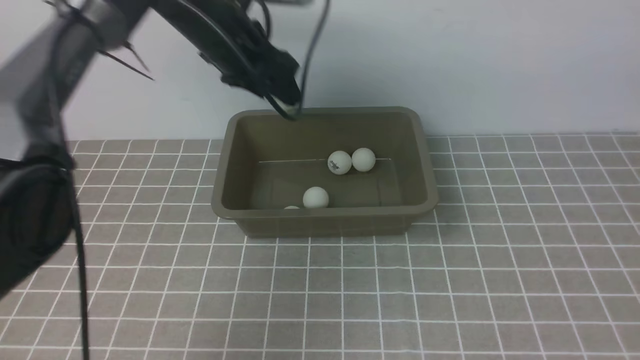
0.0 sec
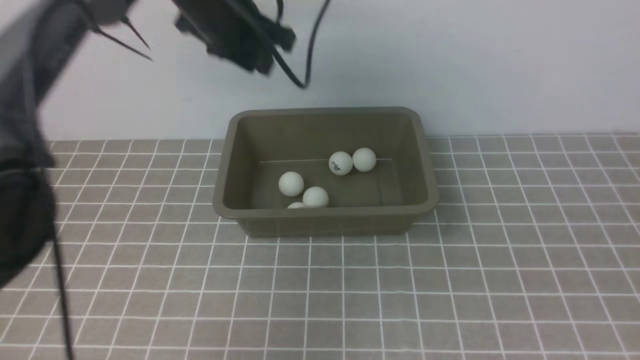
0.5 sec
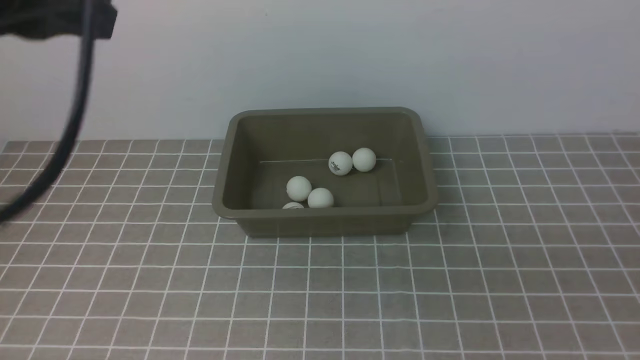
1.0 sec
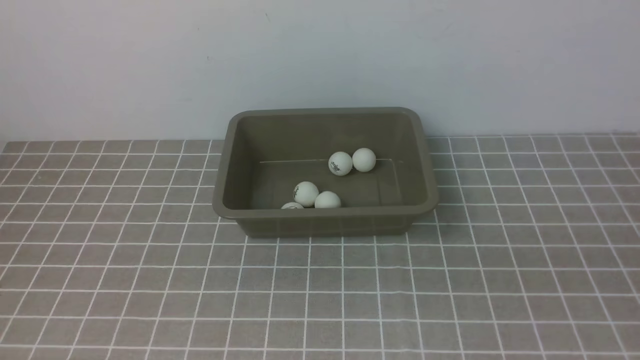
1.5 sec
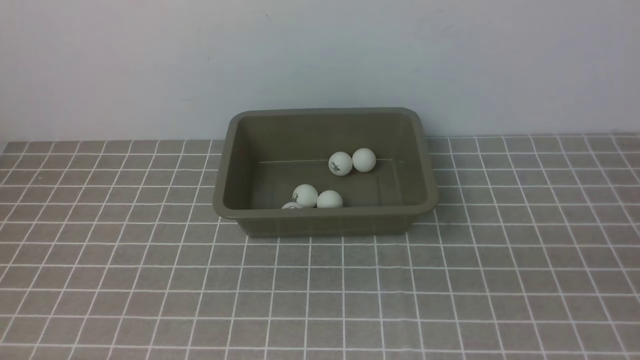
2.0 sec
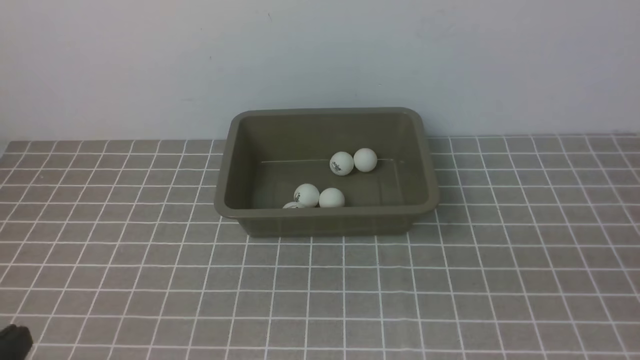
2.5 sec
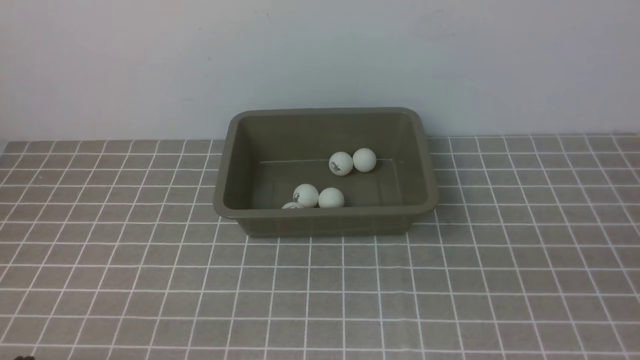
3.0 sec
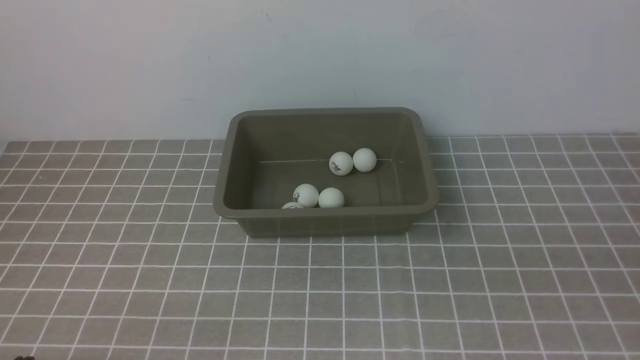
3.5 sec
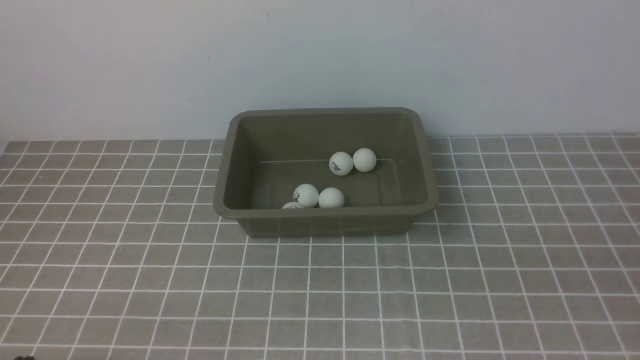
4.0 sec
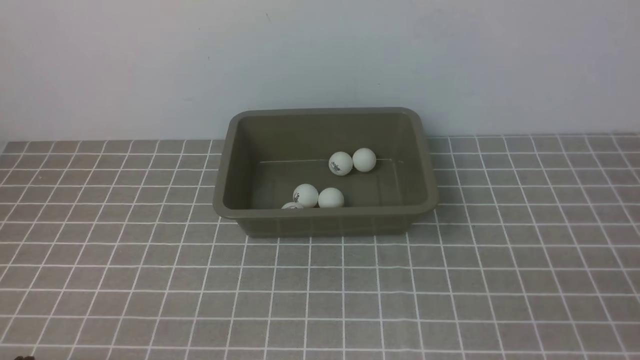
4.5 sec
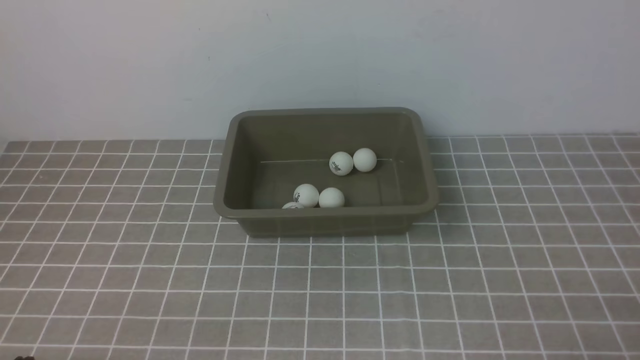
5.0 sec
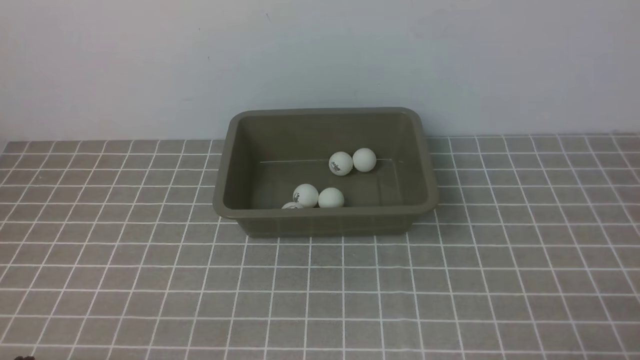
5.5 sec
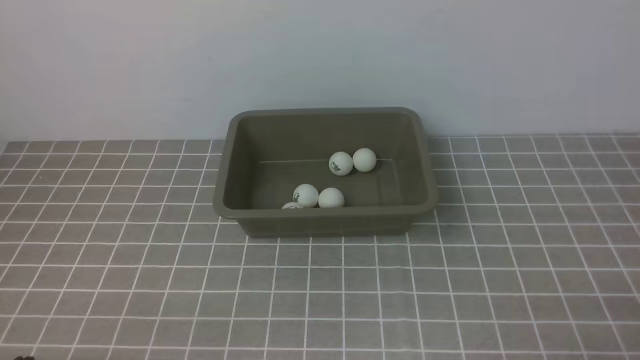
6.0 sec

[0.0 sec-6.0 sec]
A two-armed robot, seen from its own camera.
0.0 sec to 2.0 sec: The right gripper shifts approximately 25 cm downward and backward. Meanwhile the left gripper heads backward, covering some 50 cm, and closes.
